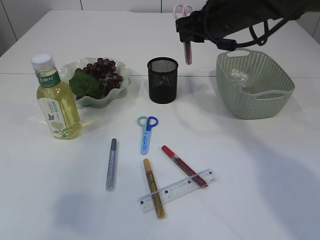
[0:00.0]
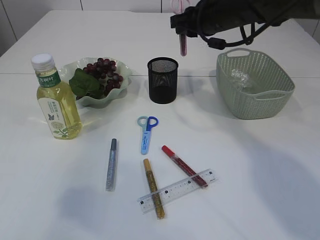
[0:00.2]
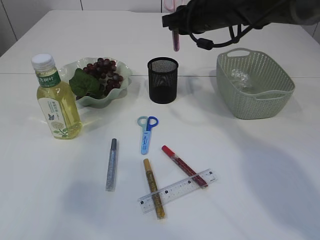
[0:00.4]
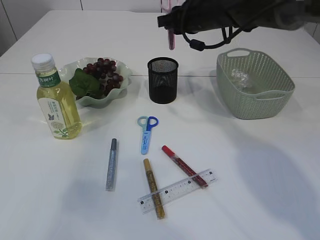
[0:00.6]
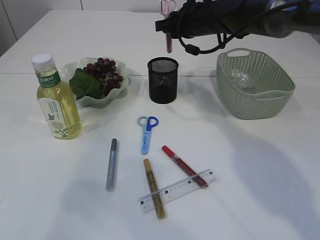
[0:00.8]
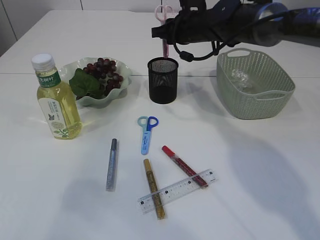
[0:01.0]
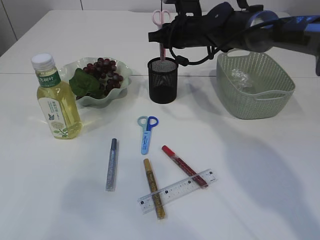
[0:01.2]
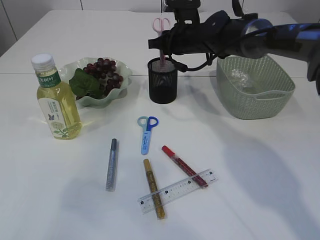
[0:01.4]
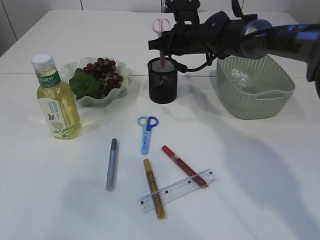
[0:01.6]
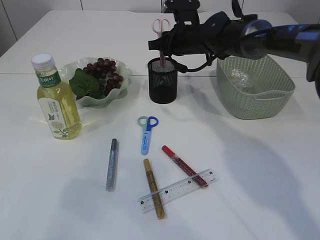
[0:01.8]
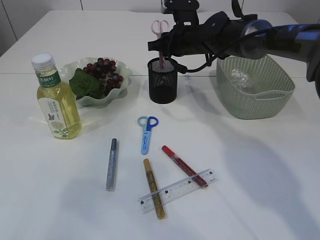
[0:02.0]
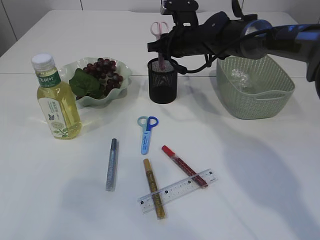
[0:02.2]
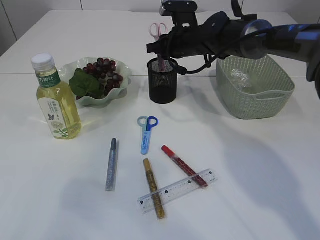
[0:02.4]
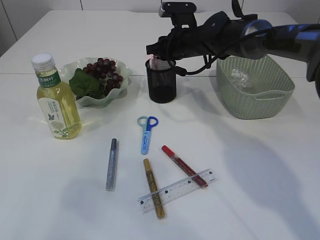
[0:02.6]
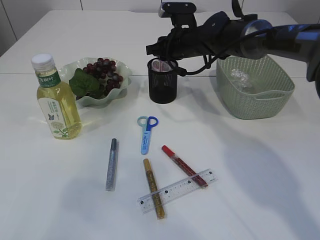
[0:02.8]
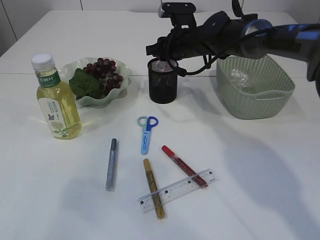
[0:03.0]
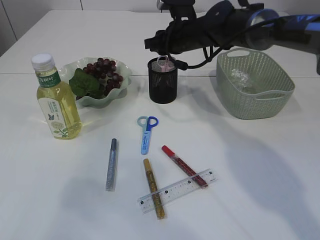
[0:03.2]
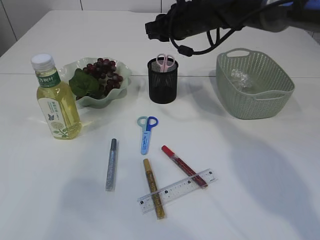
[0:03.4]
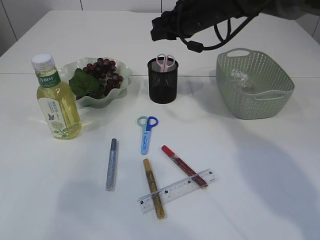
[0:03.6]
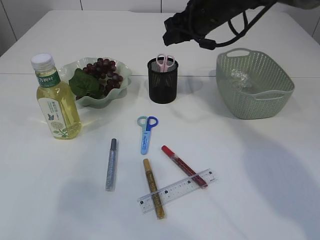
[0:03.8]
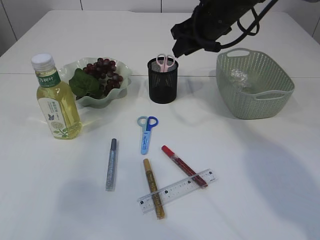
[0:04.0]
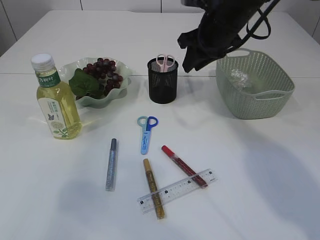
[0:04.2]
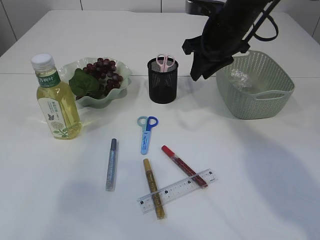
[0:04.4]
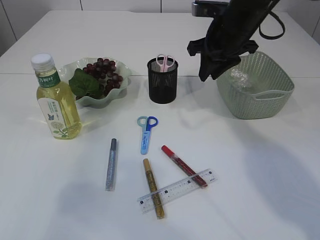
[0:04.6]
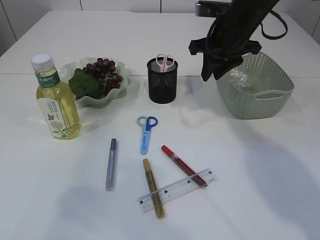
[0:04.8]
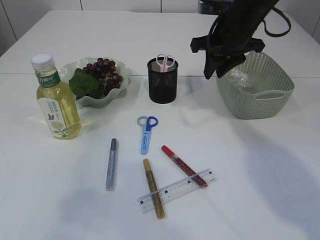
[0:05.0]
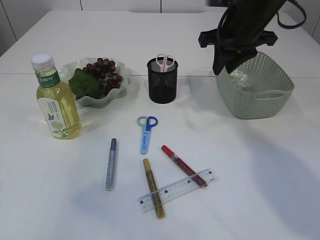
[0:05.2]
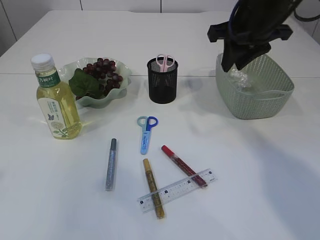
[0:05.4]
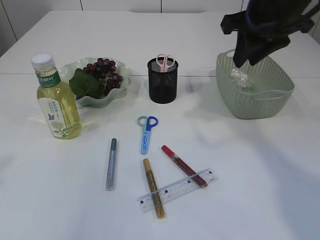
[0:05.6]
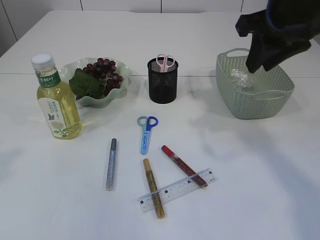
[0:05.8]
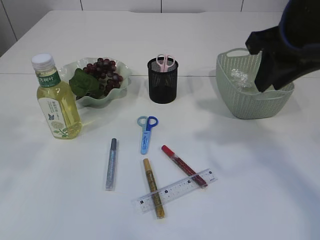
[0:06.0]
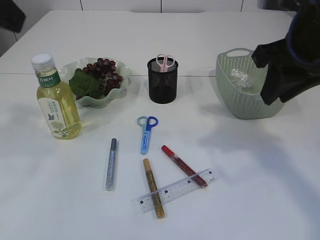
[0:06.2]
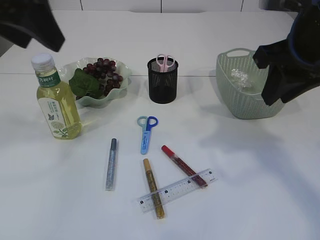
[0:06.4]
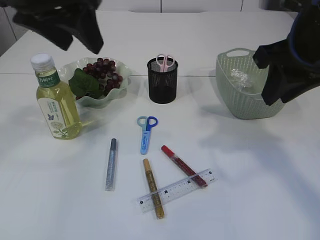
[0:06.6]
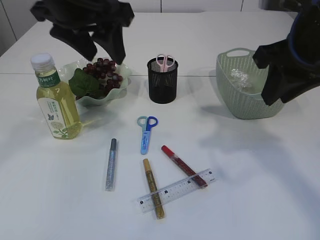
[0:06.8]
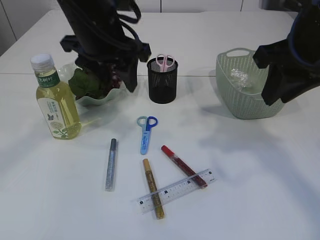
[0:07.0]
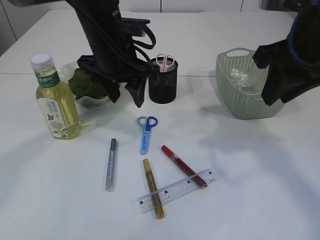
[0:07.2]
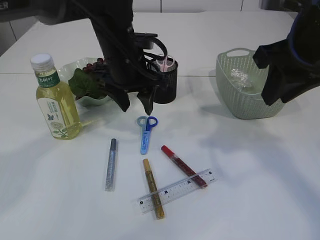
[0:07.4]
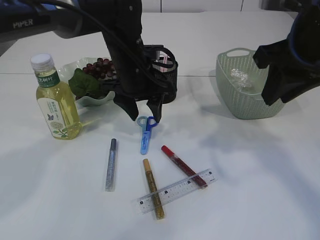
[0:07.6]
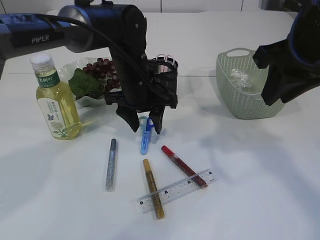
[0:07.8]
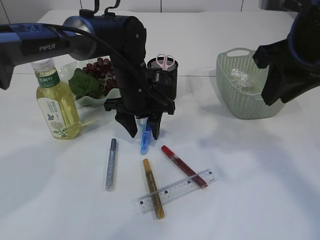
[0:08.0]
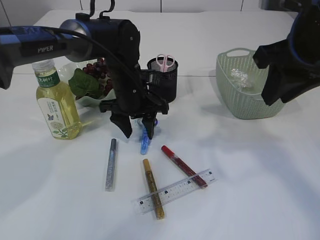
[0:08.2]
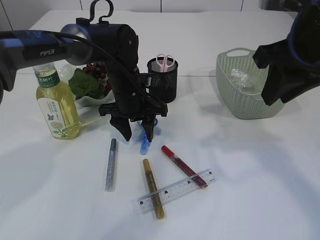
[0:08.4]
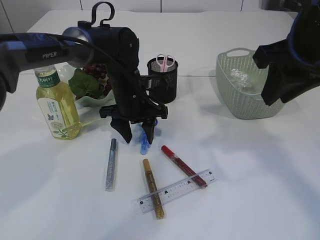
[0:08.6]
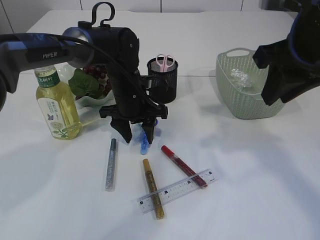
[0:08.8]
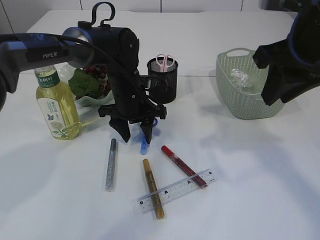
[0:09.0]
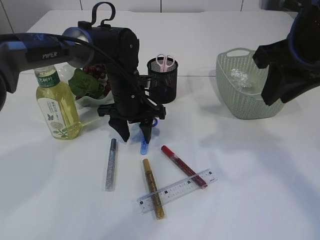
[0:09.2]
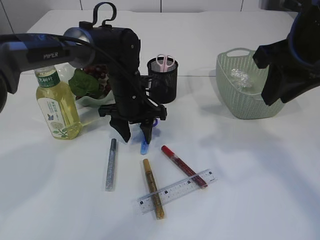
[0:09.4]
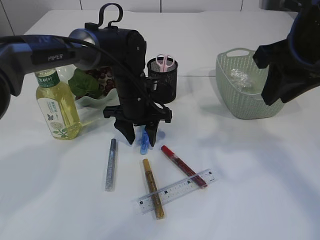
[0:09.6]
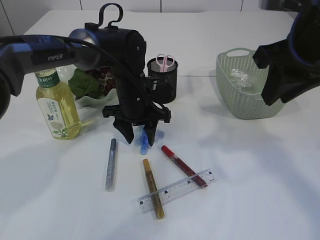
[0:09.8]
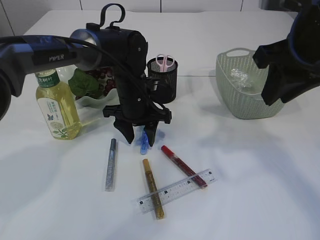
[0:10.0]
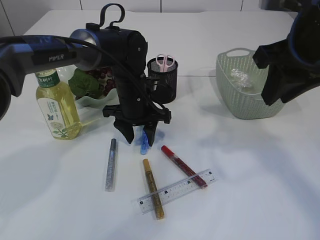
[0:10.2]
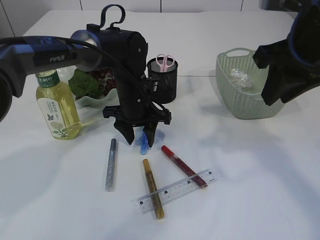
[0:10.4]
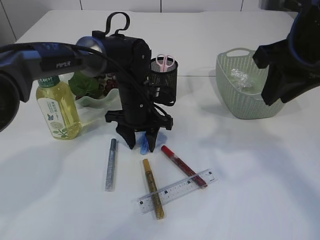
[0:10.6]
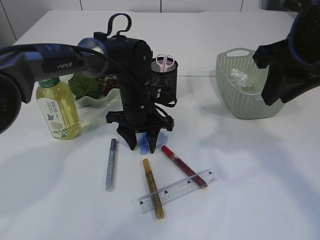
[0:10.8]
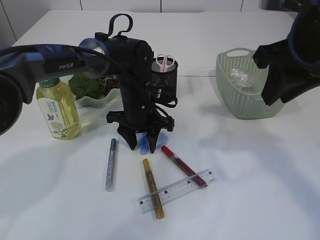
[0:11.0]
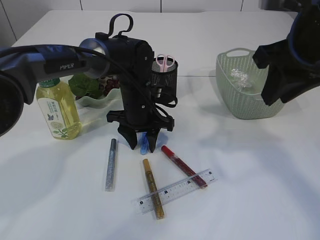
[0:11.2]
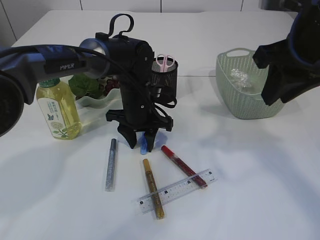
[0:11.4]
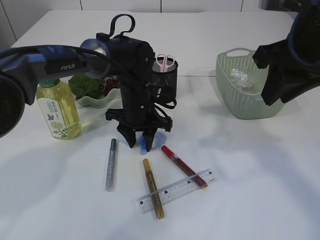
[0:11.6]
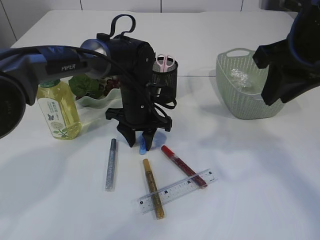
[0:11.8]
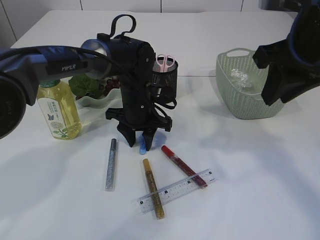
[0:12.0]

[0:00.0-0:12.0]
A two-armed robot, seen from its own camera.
Step, 0:00.0 to 0:03.6: Place the pink scissors into the pen holder.
0:00.0 to 0:01.6: The right gripper shifts roughly 15 cm forward and downward.
0:01.6 to 0:03.0: The grippers stay close to where they were, moving slightly.
0:03.0 to 0:04.4: The right gripper moves backward, upward and to the right, approximately 10 cm.
0:04.4 to 0:06.0: The right gripper is displaced backward and upward by about 15 cm. The left gripper shifts some 15 cm upward and to the right.
0:06.0 to 0:07.6: The left gripper goes about 35 cm forward, downward and to the right.
0:07.6 to 0:09.0: The left gripper is displaced downward by approximately 5 cm.
0:09.0 to 0:10.4: The two grippers keep their place.
0:10.4 to 0:12.0: There are only small adjustments of the grippers.

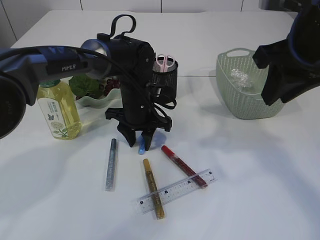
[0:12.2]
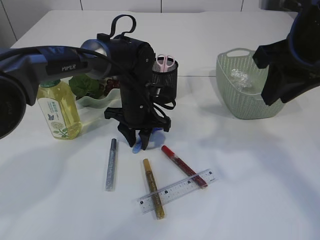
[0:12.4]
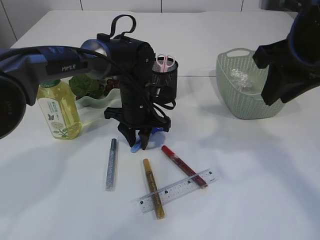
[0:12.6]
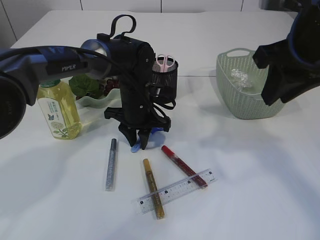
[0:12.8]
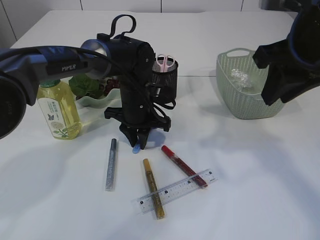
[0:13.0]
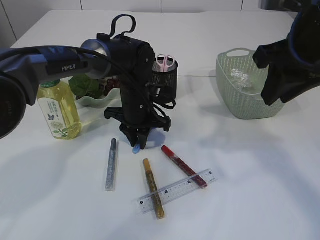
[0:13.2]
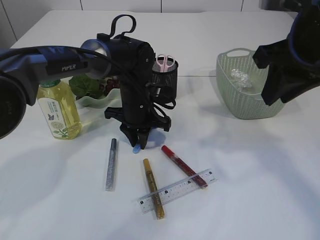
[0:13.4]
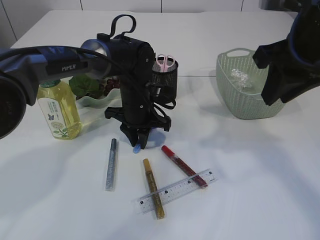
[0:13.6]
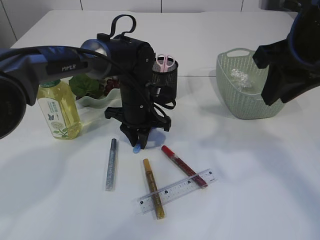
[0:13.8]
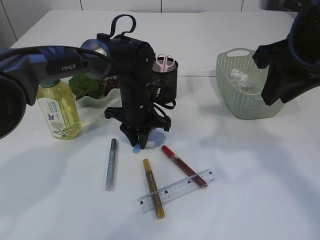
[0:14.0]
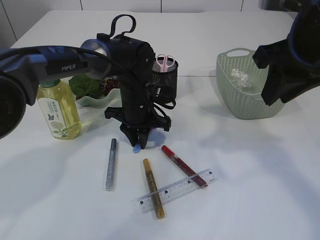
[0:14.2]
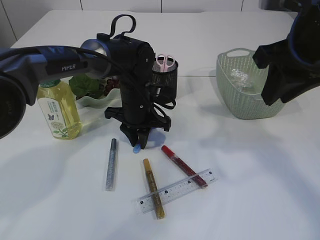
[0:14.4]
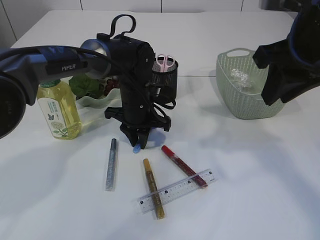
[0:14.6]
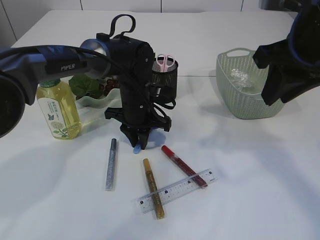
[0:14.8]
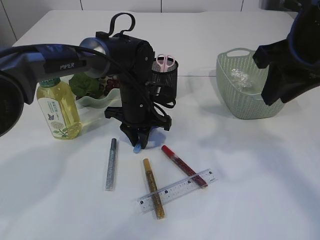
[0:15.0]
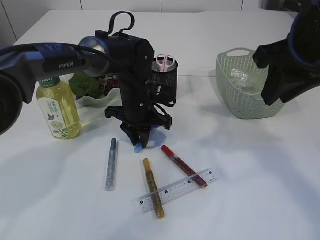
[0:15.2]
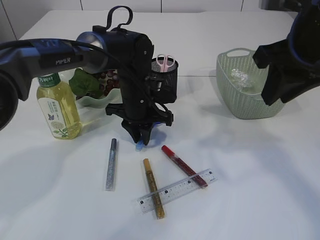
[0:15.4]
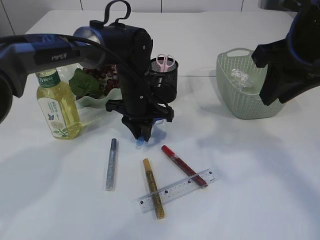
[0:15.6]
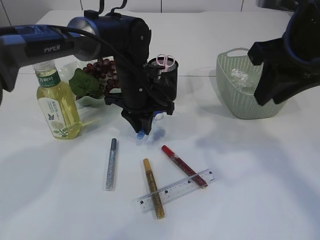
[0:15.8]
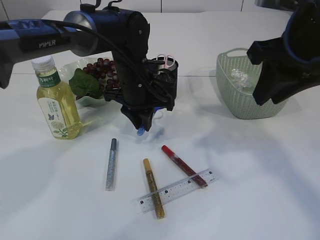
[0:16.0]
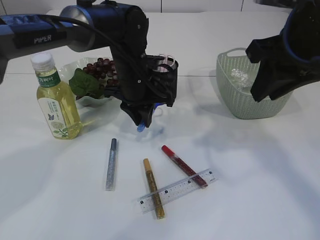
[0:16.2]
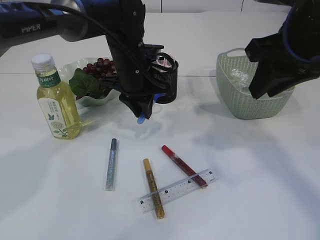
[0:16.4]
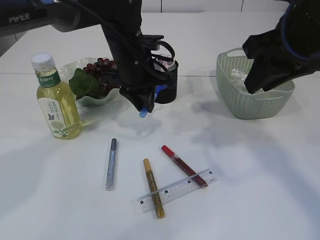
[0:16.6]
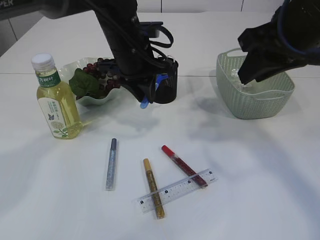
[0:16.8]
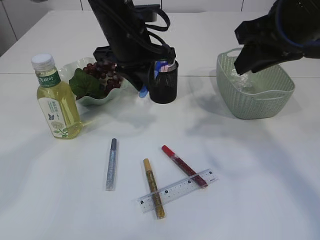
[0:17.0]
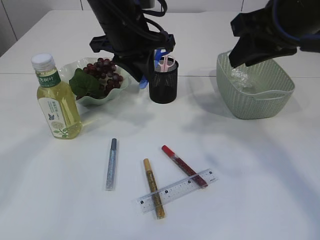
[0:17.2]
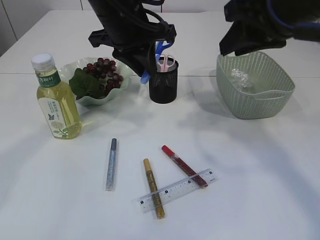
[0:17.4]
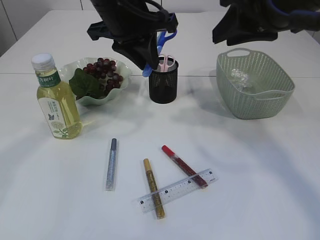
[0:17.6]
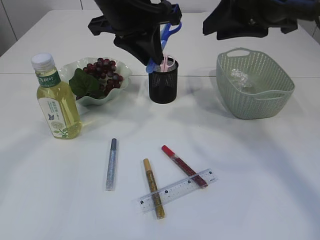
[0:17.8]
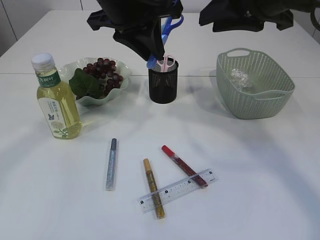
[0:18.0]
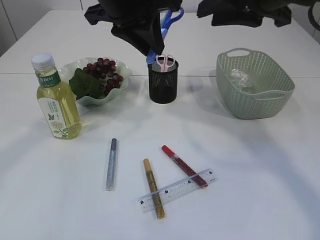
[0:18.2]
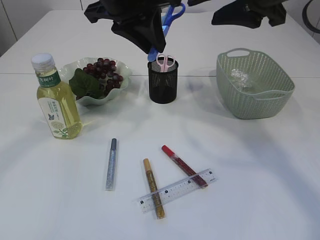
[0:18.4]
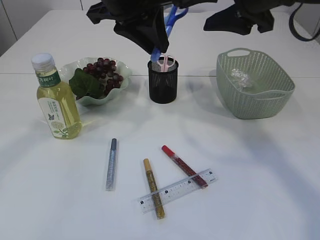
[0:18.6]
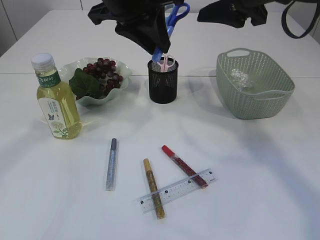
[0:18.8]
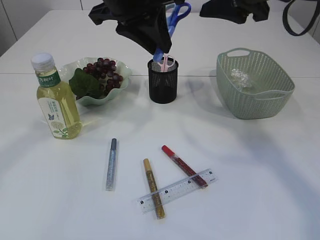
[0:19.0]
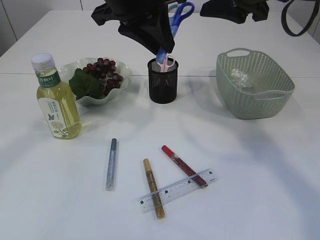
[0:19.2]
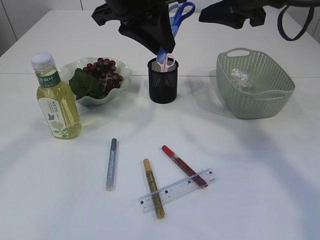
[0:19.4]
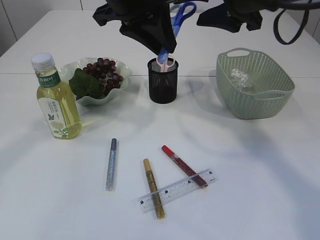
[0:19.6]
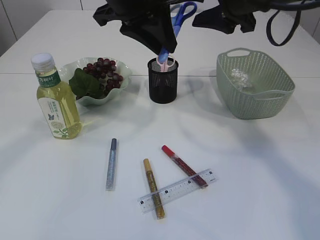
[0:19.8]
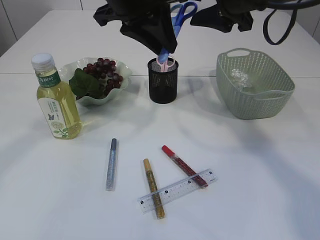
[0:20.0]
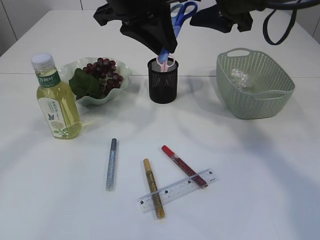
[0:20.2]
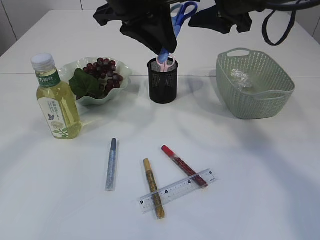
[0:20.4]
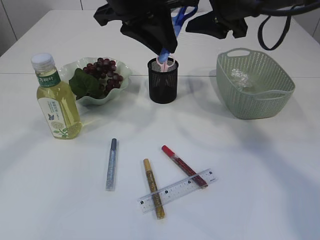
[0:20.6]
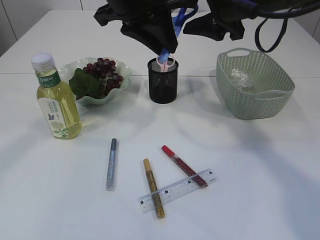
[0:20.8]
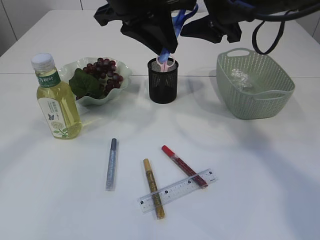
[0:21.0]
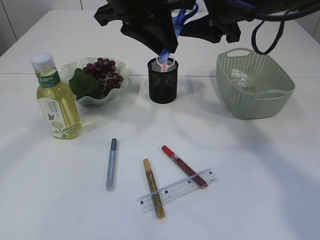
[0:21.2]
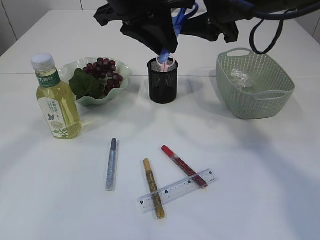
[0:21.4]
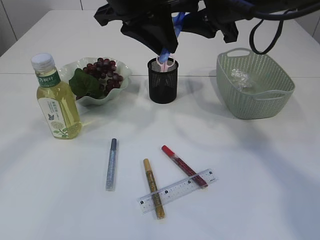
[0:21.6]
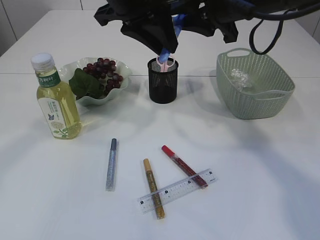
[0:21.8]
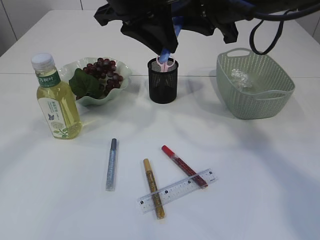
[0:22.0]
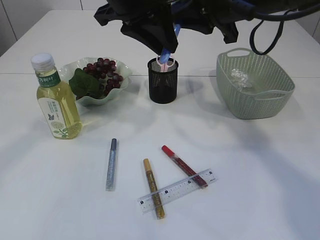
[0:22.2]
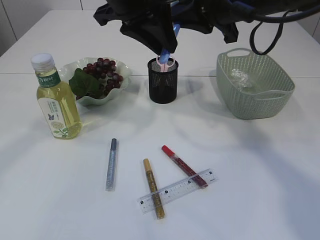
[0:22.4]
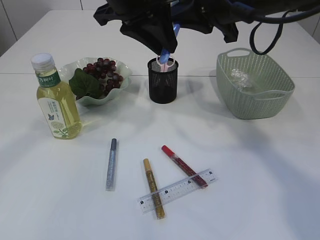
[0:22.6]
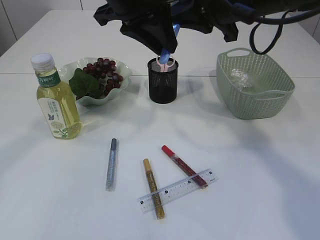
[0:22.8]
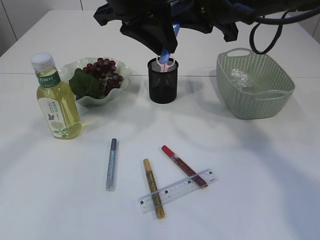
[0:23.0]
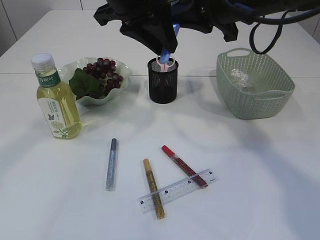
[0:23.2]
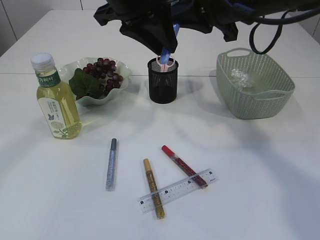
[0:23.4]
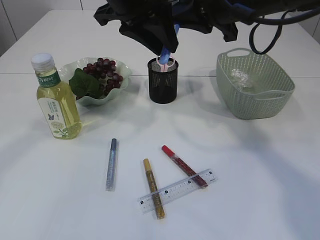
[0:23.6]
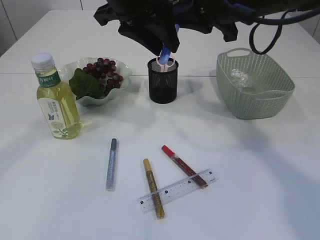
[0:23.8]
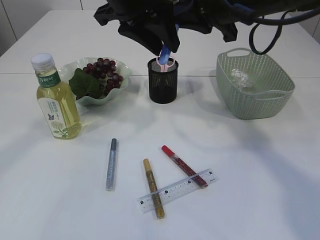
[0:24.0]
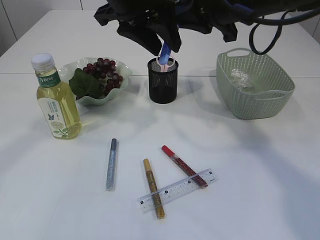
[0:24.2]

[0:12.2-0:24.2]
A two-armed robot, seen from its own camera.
Step, 0:12.2 to 0:16.4: pick up the blue scissors.
0:12.2 to 0:15.2: Both grippers stay put.
0:15.2 to 0:16.6: The left gripper travels upward by about 10 cm.
0:16.6 to 0:18.2: The right gripper changes place by approximately 5 cm; the left gripper moves upward, about 15 cm.
0:18.2 to 0:19.8: The right gripper opens up.
0:19.8 to 0:21.2: The grippers move only a little.
0:21.2 to 0:22.6: The right gripper closes up.
0:22.6 to 0:24.2: Neither gripper changes place.
